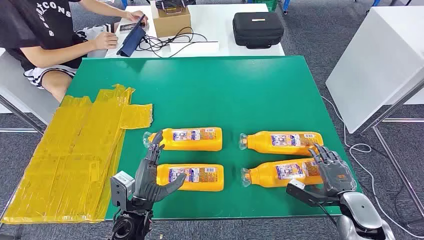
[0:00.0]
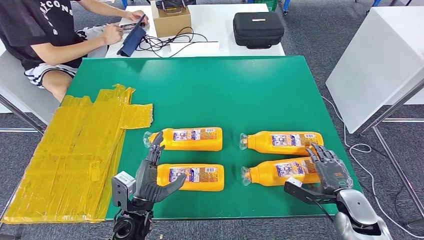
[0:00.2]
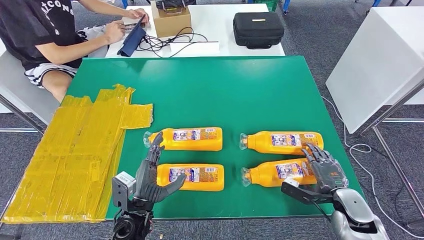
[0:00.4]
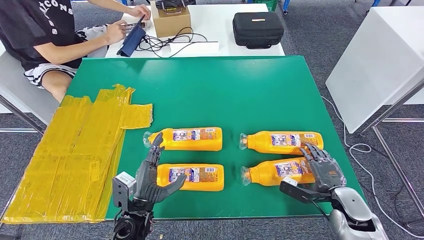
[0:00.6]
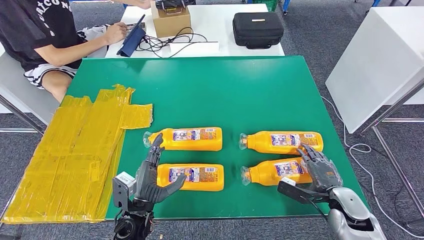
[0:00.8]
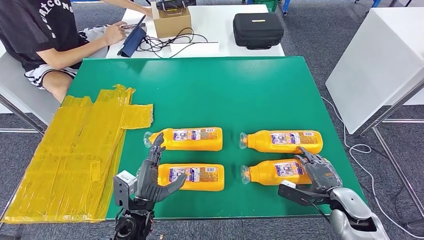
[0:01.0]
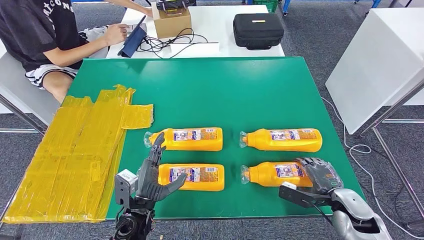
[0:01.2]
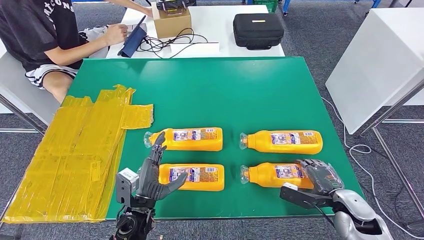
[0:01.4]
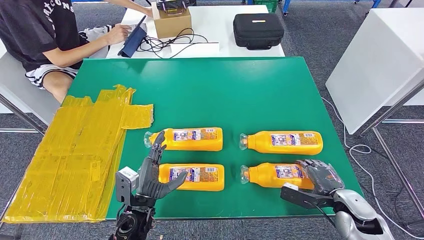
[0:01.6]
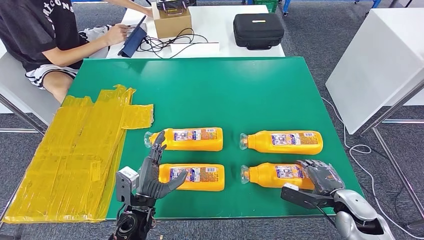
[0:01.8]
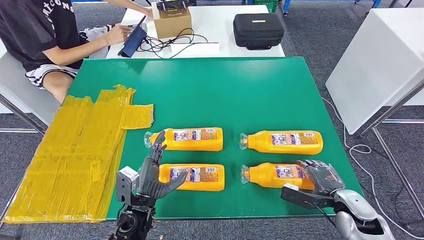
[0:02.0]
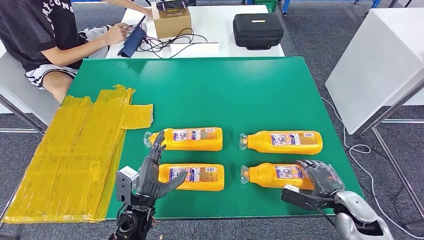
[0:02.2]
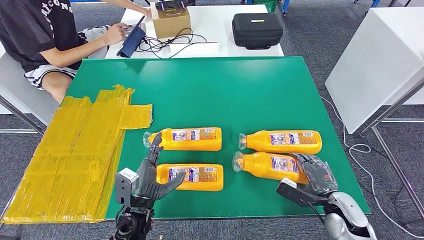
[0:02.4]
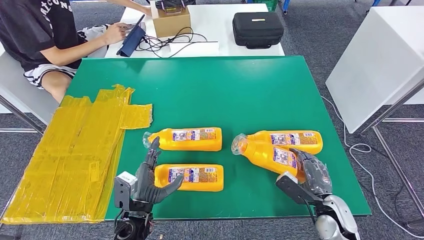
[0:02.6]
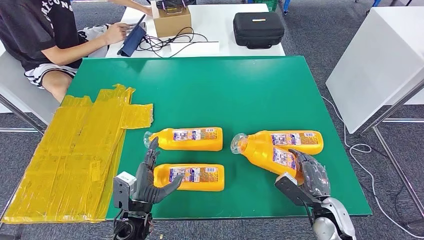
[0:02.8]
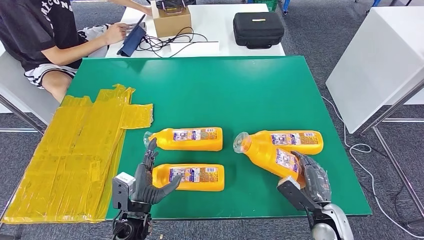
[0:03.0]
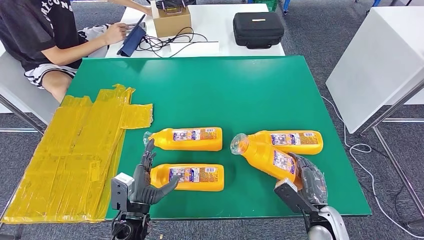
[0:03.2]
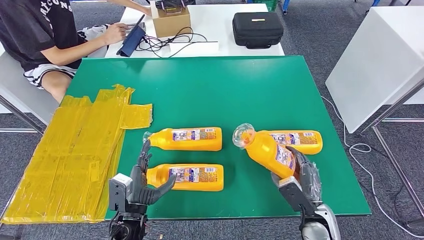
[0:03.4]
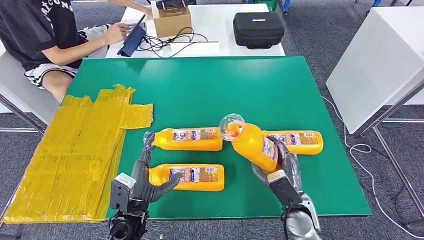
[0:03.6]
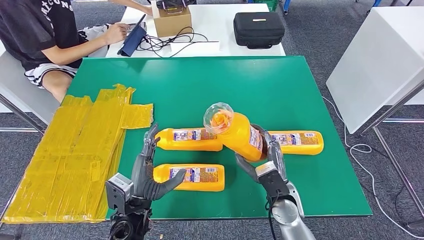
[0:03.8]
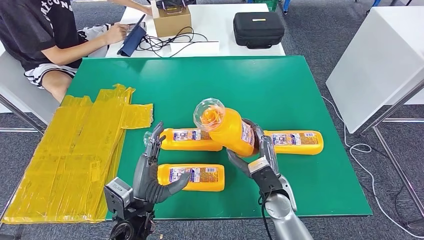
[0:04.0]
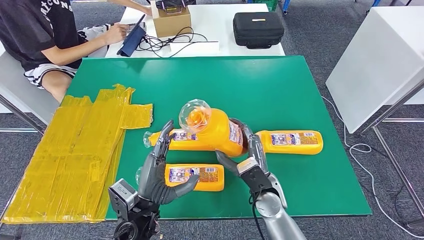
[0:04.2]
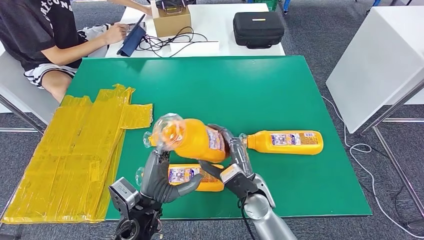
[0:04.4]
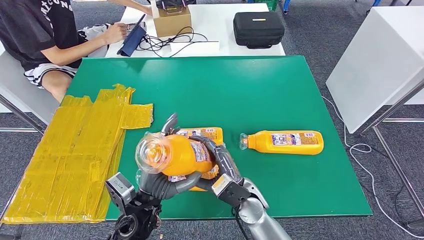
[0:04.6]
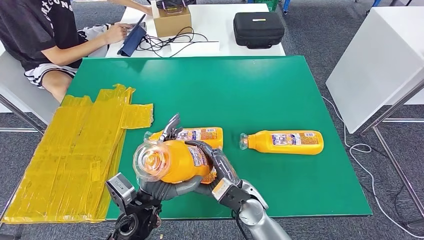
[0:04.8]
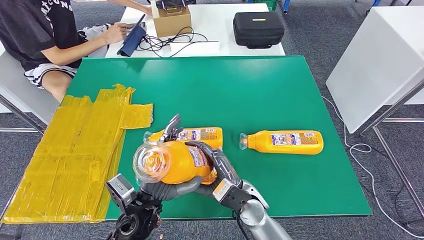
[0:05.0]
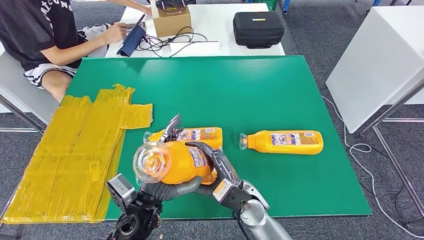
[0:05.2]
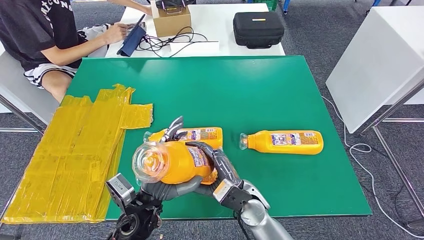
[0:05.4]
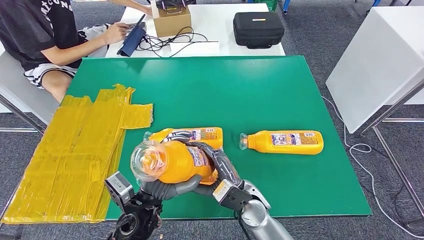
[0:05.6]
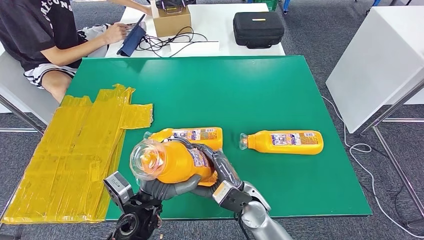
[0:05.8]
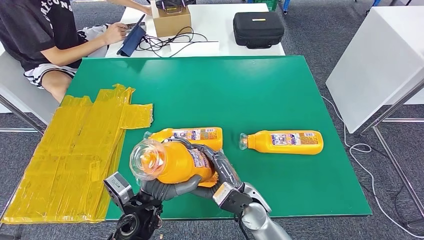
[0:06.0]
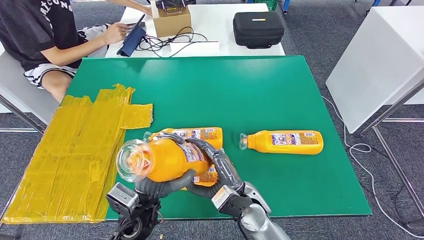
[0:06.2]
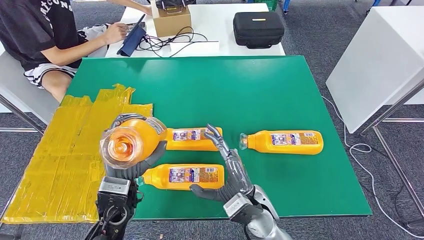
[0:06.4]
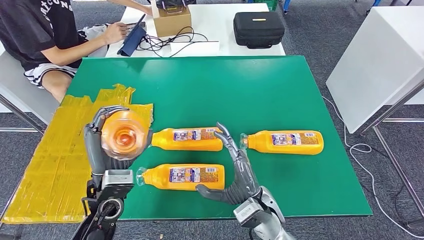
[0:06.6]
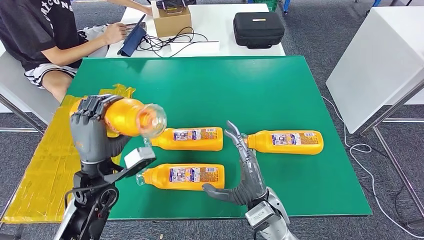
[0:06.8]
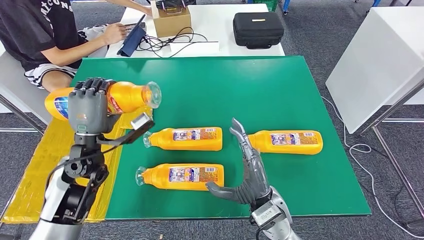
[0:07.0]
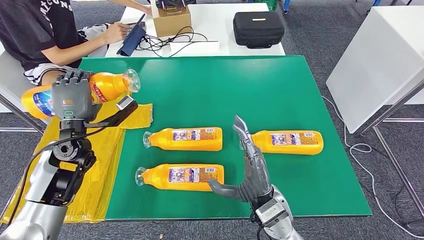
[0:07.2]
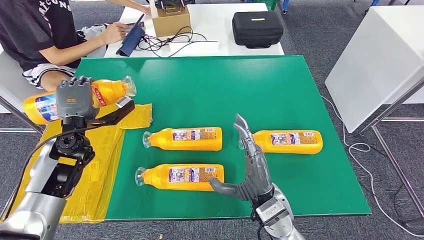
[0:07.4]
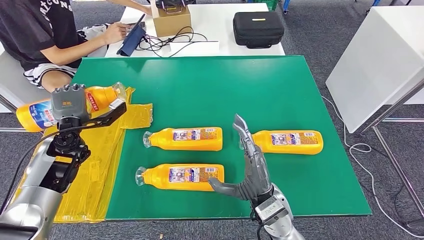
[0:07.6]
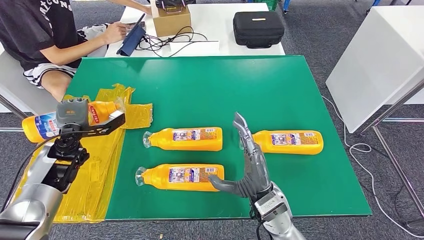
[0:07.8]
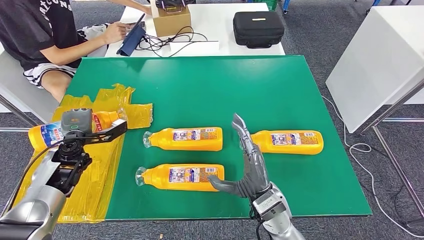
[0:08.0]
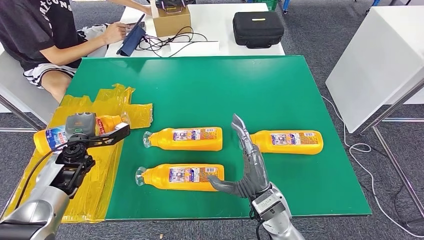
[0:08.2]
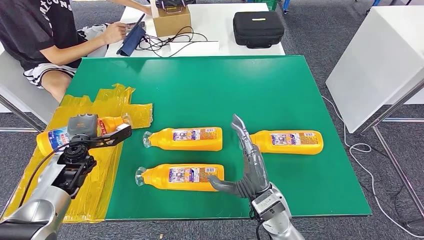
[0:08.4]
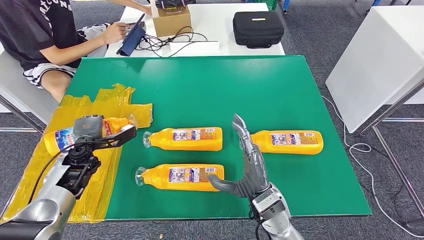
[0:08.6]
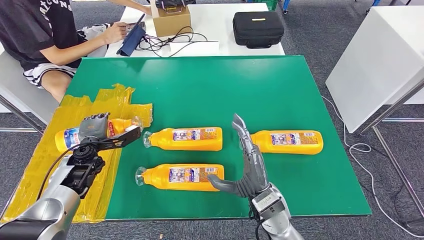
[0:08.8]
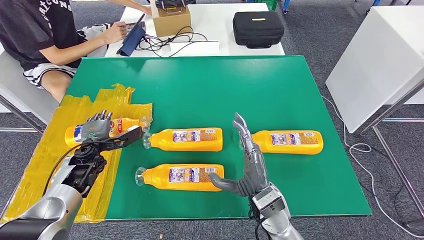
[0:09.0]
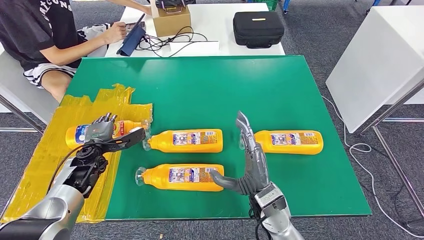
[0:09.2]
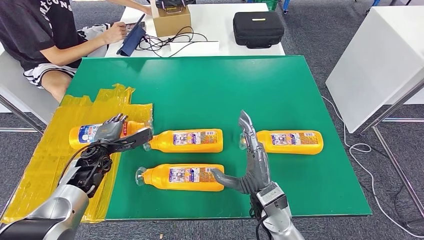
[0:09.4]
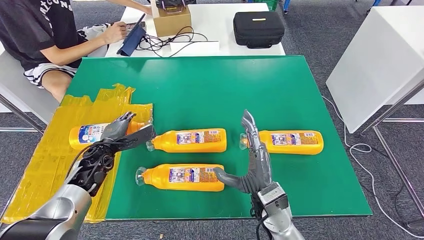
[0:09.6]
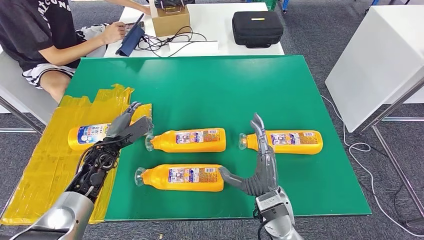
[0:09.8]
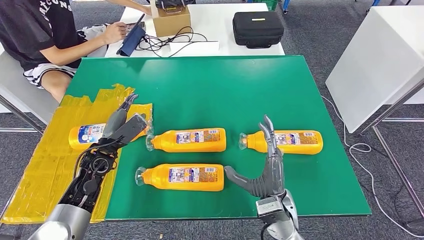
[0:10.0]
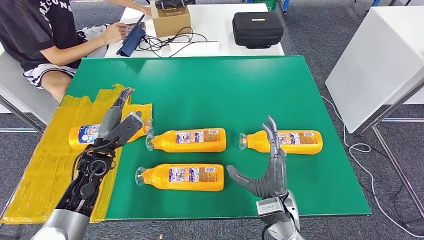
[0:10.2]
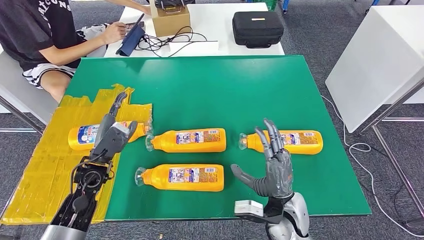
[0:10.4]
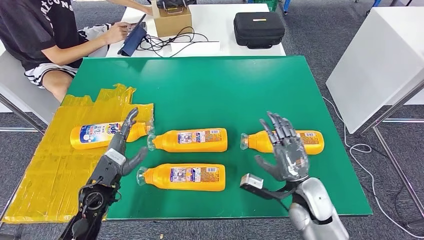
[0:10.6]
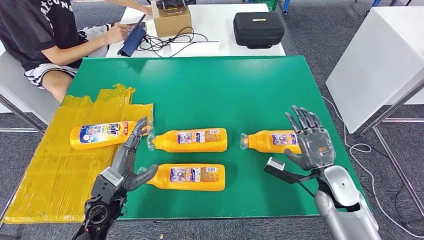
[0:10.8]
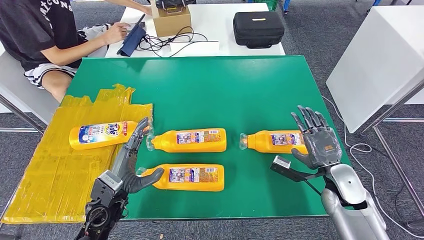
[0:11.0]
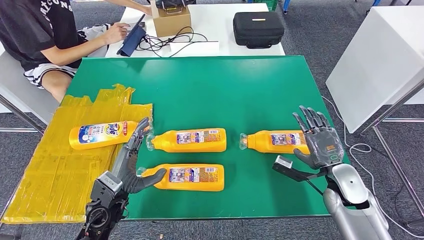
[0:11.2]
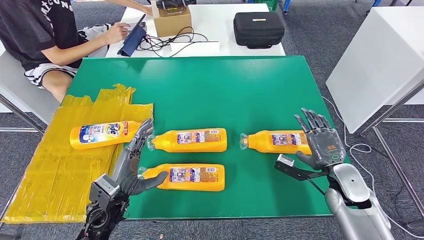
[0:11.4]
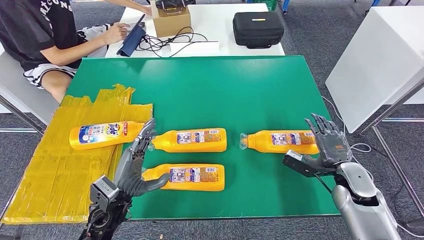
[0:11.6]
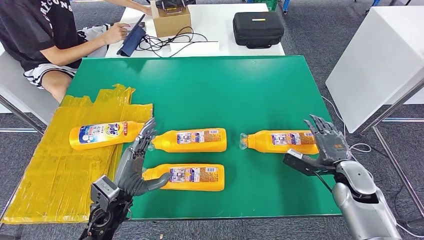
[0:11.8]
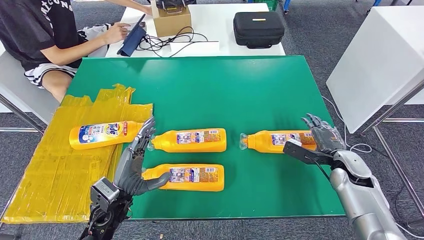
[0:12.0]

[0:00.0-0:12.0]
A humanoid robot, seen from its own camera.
Step, 0:00.0 to 0:04.0: Take the fast-moving consumer goods bottle from the table.
Step, 0:04.6 to 0:10.0: Flip the fast-moving consumer goods bottle to the front side.
0:01.6 to 0:03.0: The right hand travels to the left by some 5 cm.
0:03.0 to 0:04.4: The right hand travels to the left by roughly 20 cm. The left hand shifts approximately 10 cm upward.
0:04.4 to 0:06.0: There are only small adjustments of the hands.
0:06.0 to 0:07.6: The left hand goes approximately 30 cm to the left and forward. The right hand shifts by about 5 cm.
0:07.6 to 0:09.0: The left hand goes approximately 10 cm downward.
0:09.0 to 0:10.4: The left hand moves backward and to the right, roughly 10 cm. Meanwhile the right hand shifts by roughly 5 cm.

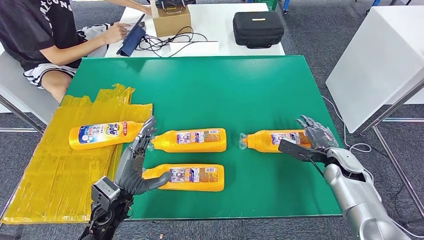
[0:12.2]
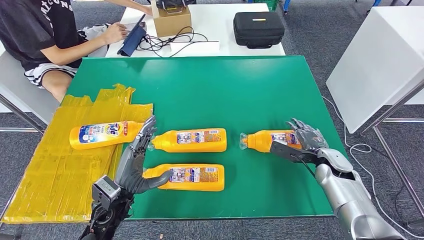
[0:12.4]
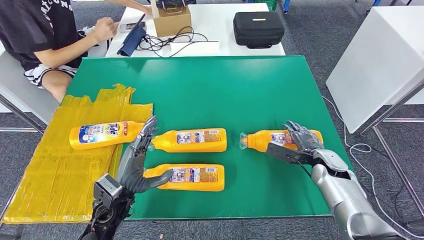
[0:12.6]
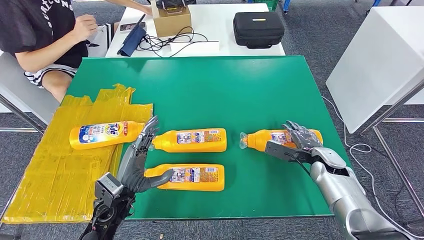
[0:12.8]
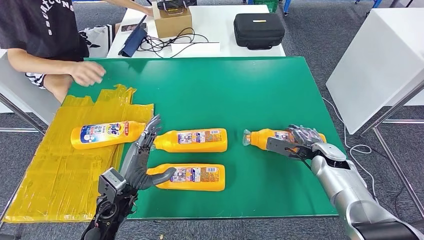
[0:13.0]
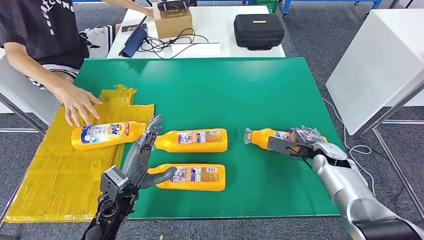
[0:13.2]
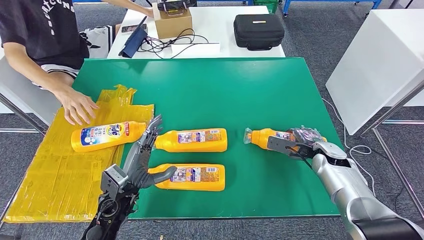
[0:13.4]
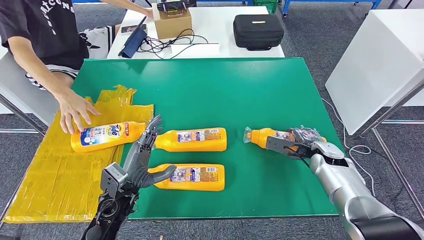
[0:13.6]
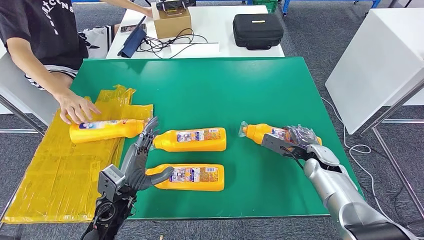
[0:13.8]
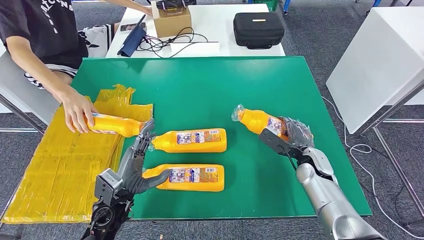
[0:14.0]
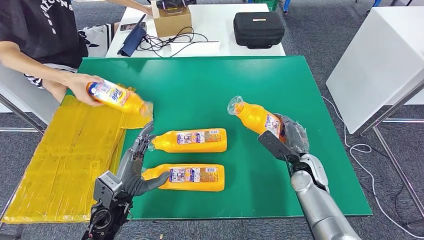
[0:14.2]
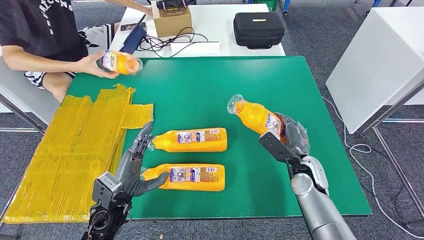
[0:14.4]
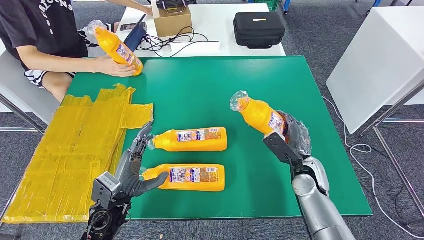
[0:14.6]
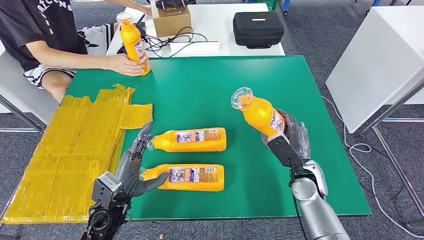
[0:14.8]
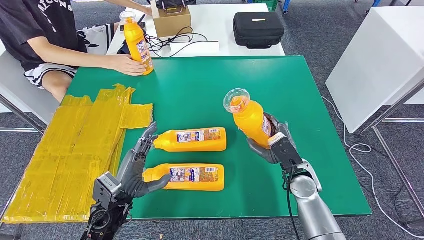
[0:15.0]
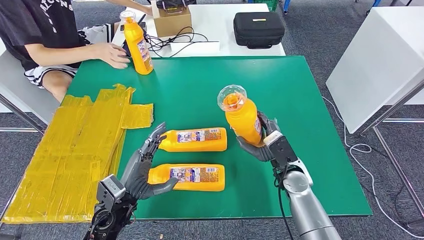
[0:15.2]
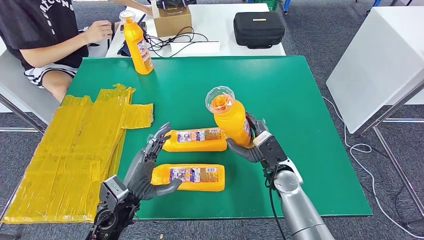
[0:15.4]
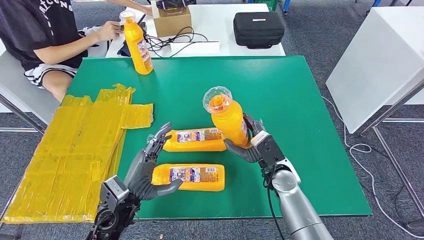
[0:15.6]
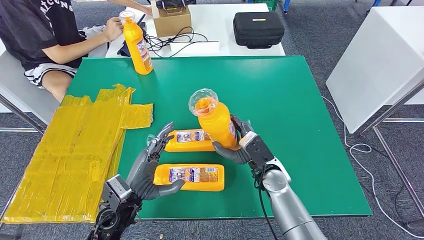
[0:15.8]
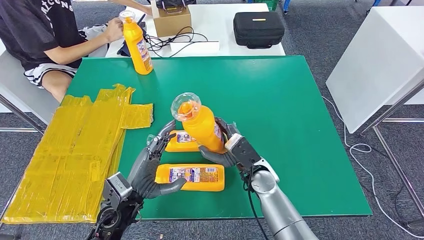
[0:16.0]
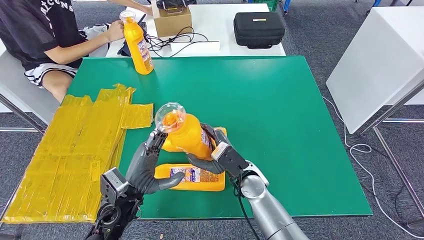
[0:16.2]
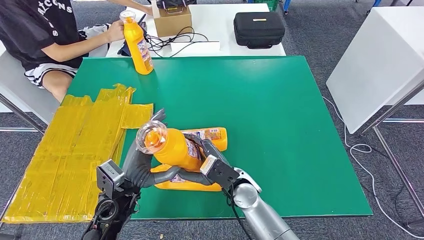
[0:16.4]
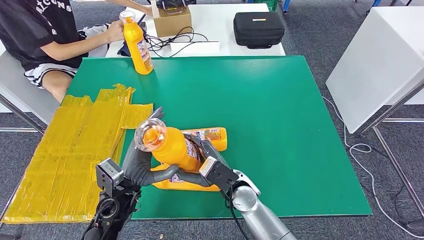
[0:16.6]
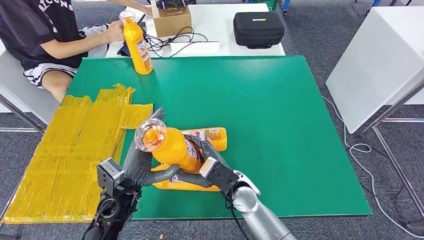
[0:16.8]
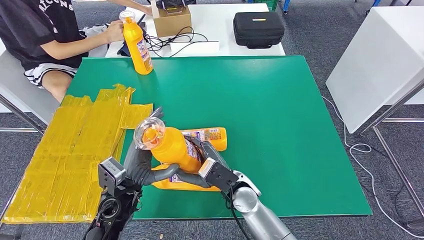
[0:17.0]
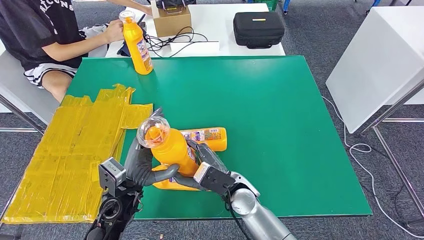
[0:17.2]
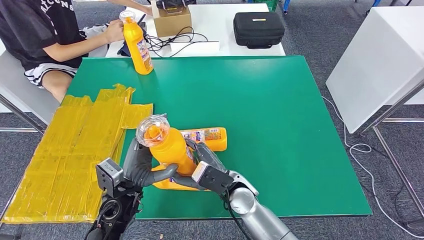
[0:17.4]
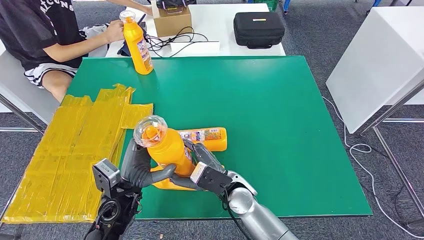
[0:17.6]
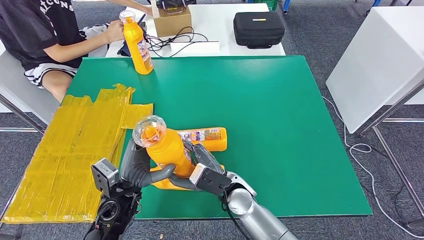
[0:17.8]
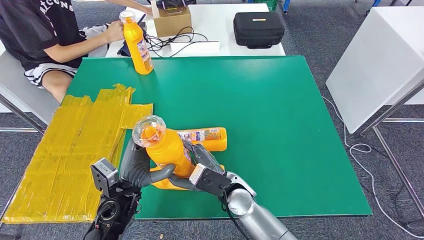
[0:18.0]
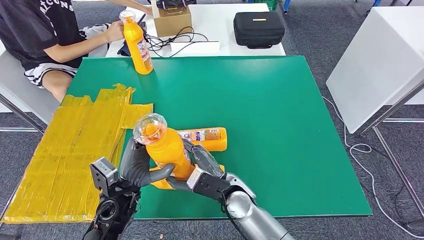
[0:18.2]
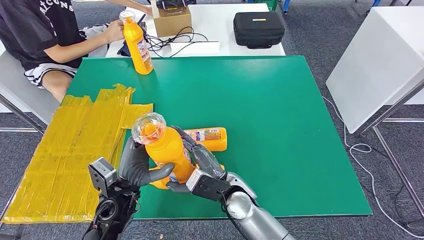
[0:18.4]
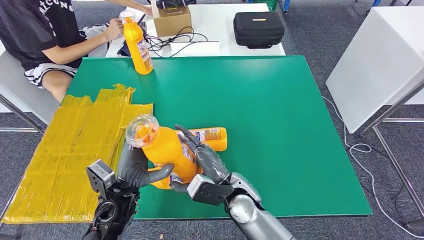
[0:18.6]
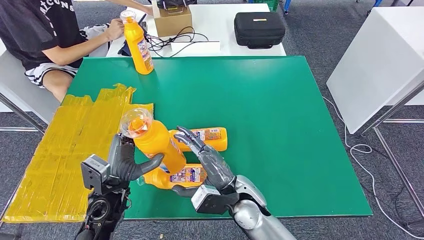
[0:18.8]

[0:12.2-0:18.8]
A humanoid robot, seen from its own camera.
Step, 0:12.2 to 0:15.4: Pick up the fast-moving consumer goods bottle from the table.
0:15.4 to 0:17.2: The right hand travels to the left and backward by some 15 cm.
0:17.2 to 0:18.8: The hands make only small movements.
